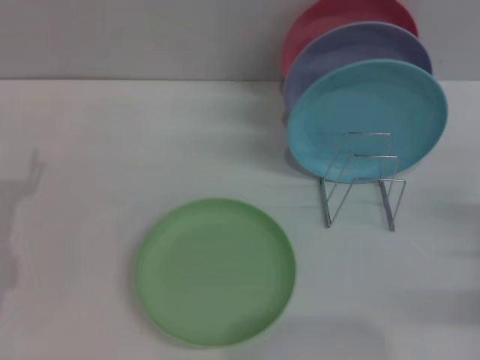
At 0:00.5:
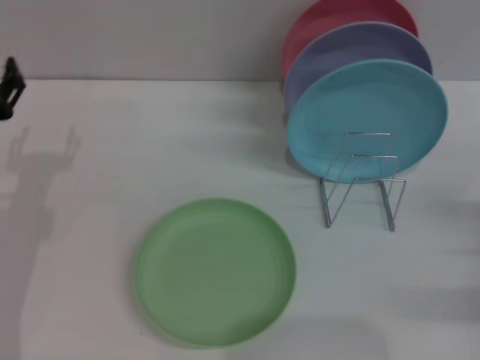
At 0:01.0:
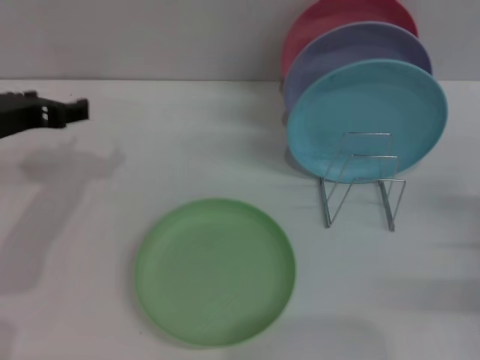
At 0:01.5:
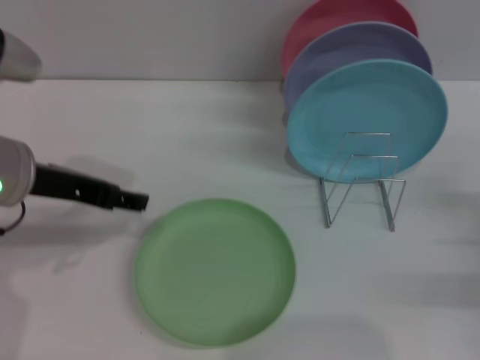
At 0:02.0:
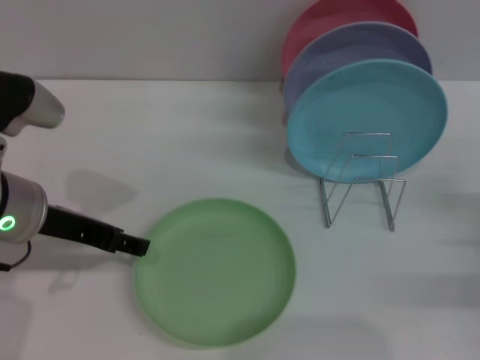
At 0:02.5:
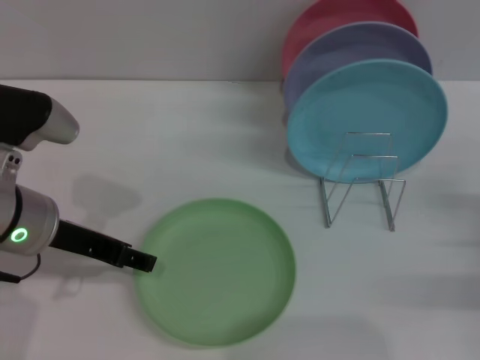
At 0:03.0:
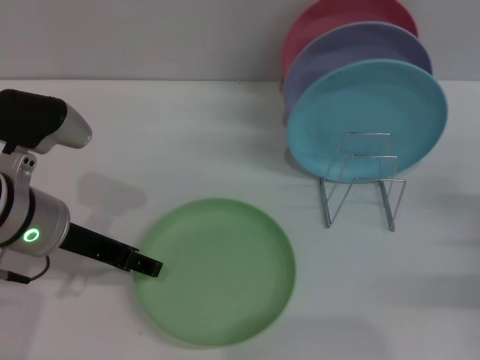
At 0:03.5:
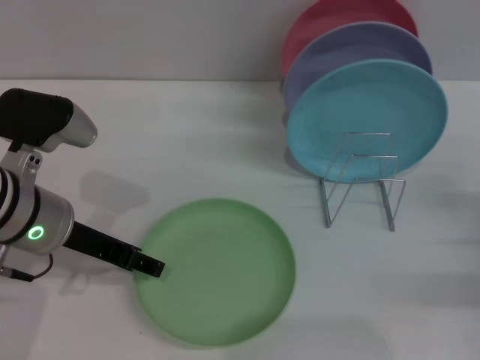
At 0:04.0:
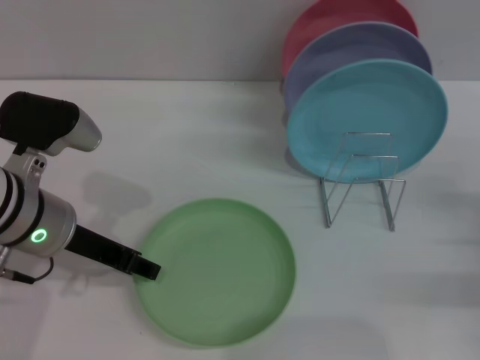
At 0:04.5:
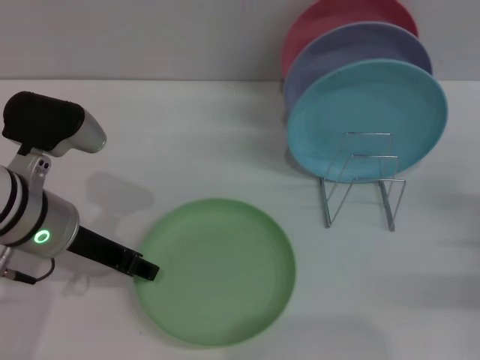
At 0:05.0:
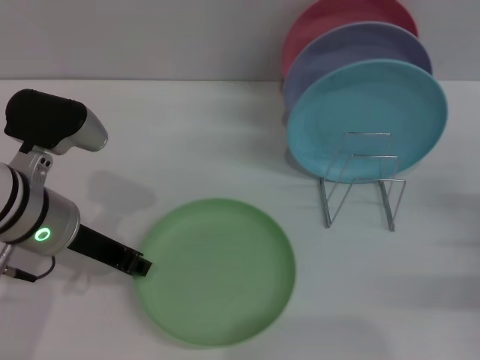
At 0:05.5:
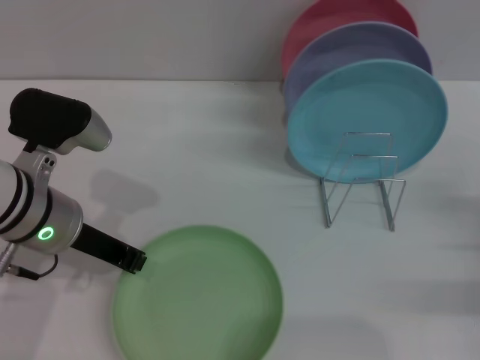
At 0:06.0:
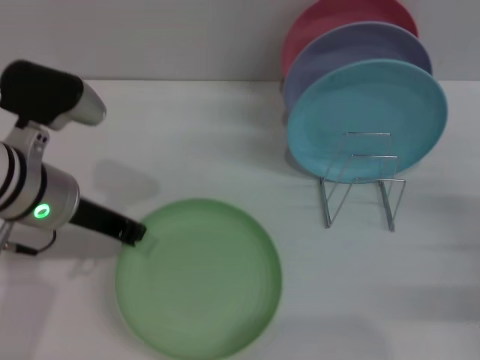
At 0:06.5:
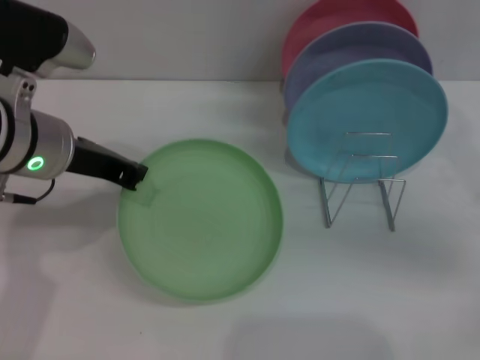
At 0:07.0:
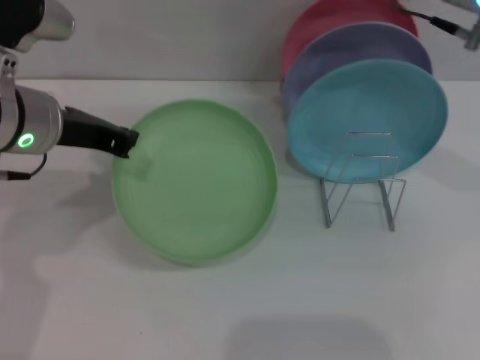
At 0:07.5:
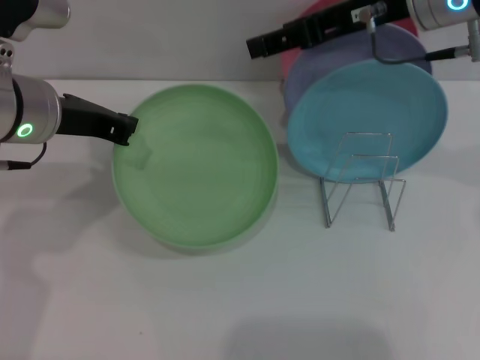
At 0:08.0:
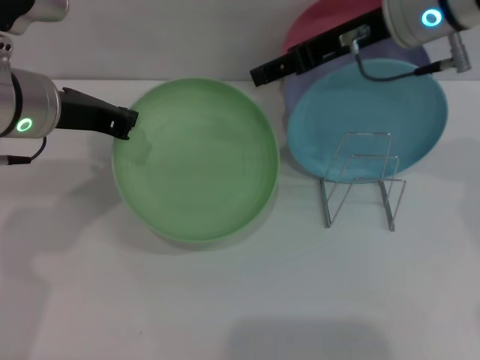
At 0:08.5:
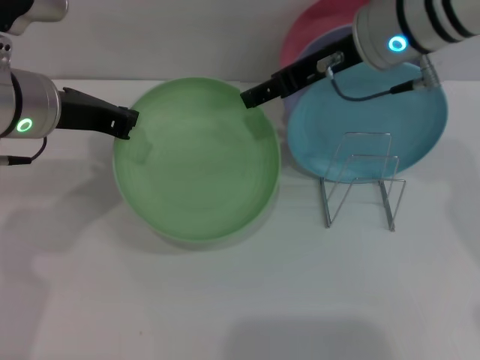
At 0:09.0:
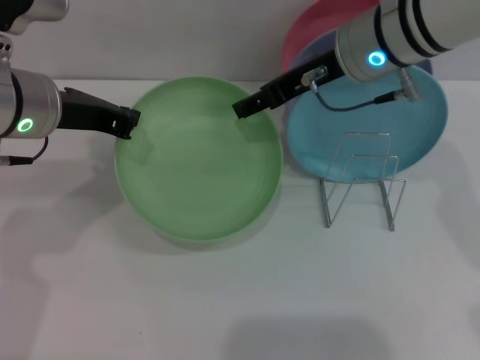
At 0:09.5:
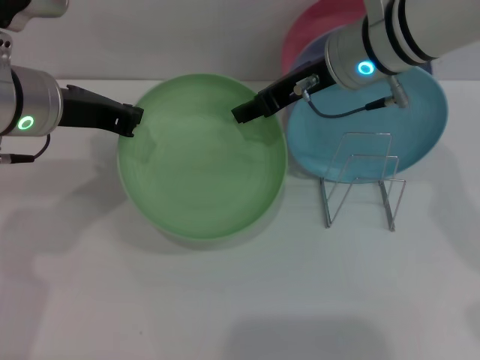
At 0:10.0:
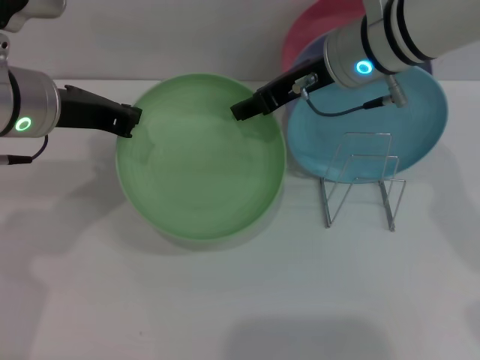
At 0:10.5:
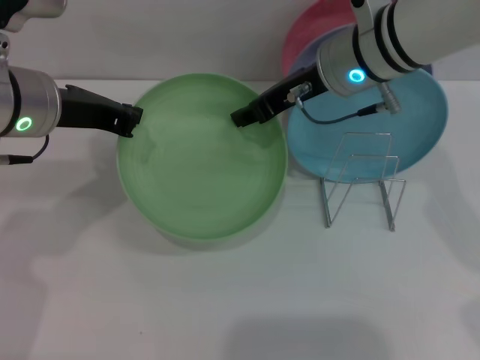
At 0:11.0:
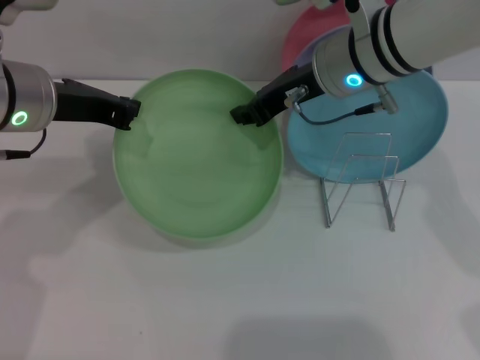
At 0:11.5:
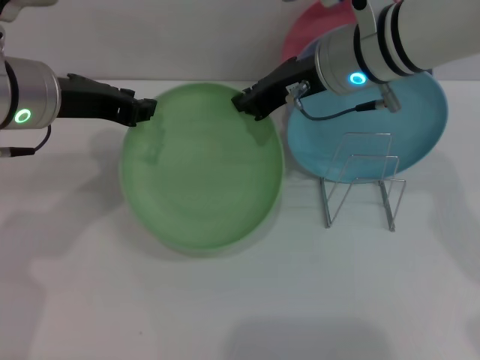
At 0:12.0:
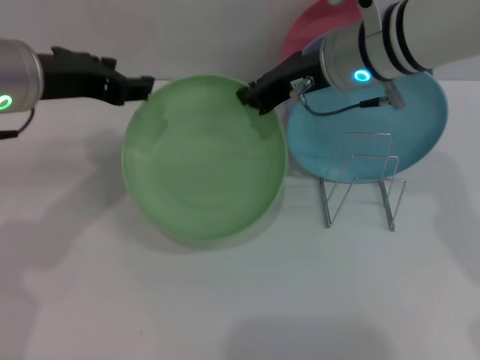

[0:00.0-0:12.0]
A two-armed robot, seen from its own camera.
Task of the whole recording: Grip the plate with one hand, pass it to the other, then set it on the shelf.
Step, 0:00.0 to 0:07.0: Pick up the plate with the left gripper.
0:00.0 to 0:02.0: The left gripper heads upward and to the right, covering roughly 15 cm.
0:02.0 to 0:04.0: The grippers move only a little.
0:04.0 to 0:06.0: The left gripper closes its fingers.
0:06.0 to 0:08.0: The right gripper shifts about 35 cm upward, to the left and forward, while the left gripper is displaced upward by roughly 5 cm.
0:08.0 to 0:10.0: The right gripper changes place by roughly 5 cm.
0:10.0 to 0:12.0: The left gripper opens up. Meanwhile the right gripper closes up.

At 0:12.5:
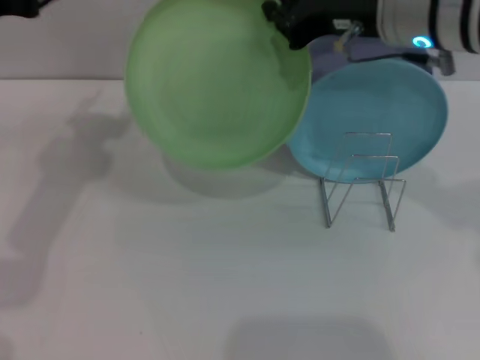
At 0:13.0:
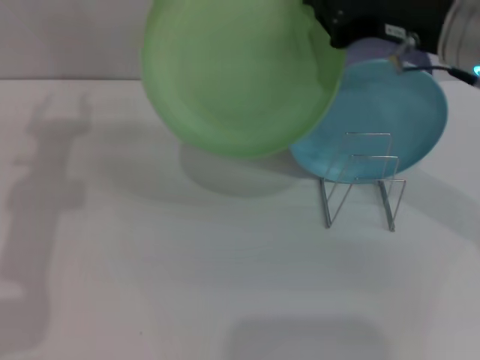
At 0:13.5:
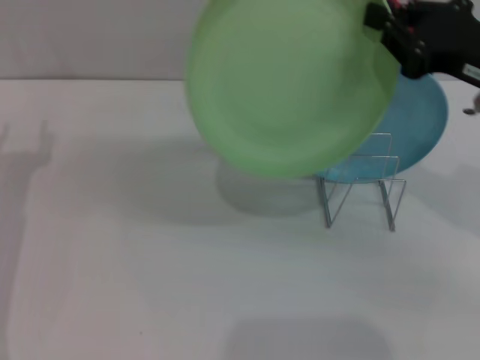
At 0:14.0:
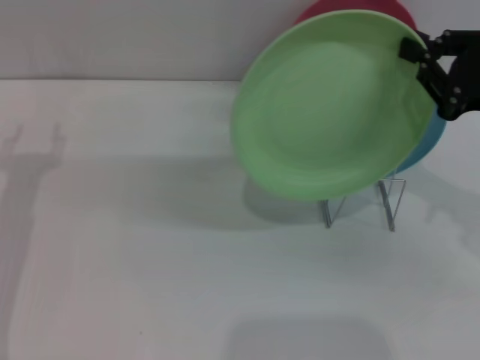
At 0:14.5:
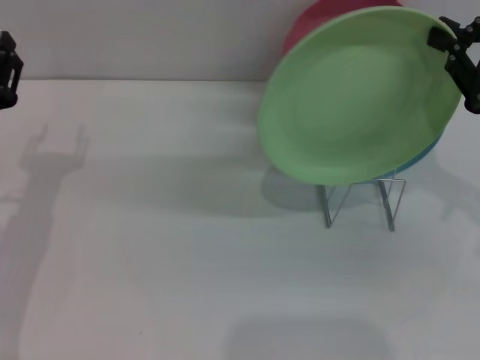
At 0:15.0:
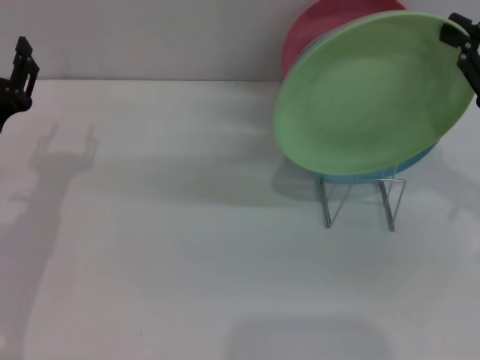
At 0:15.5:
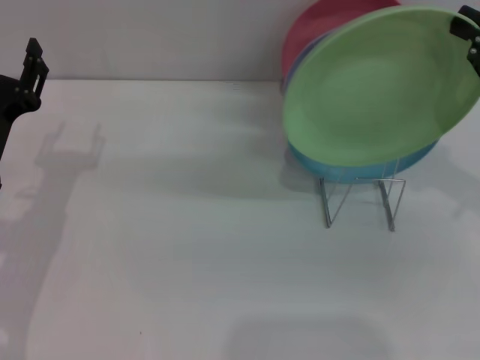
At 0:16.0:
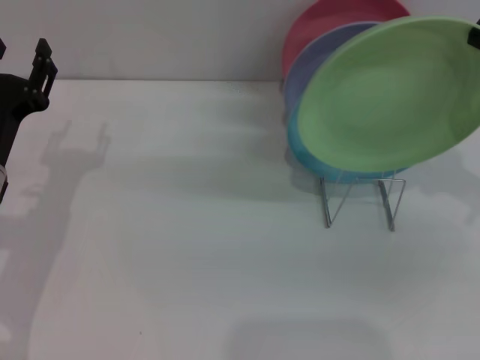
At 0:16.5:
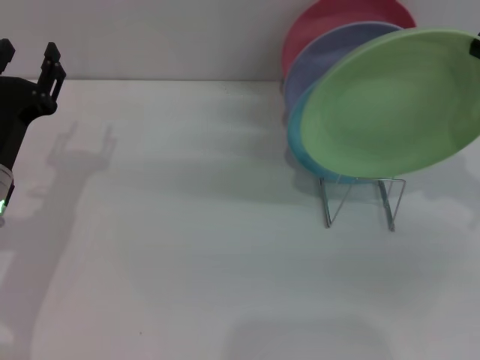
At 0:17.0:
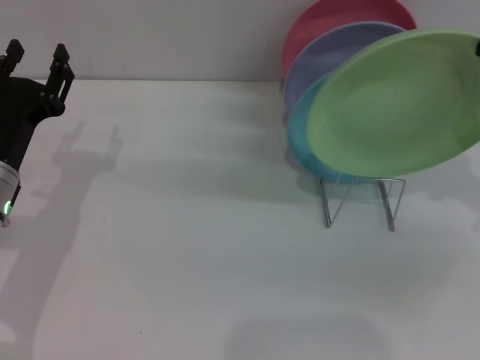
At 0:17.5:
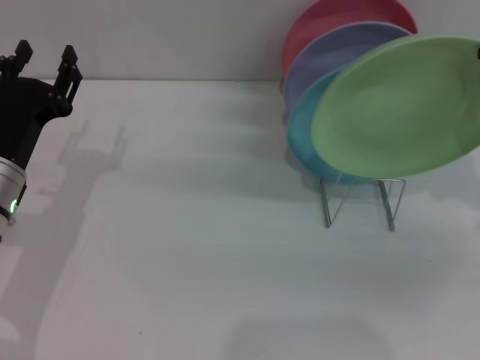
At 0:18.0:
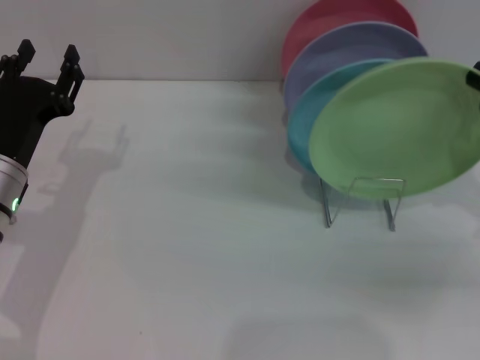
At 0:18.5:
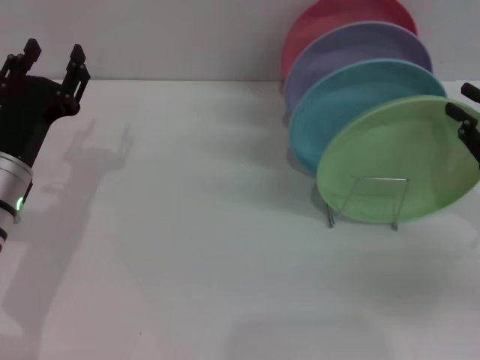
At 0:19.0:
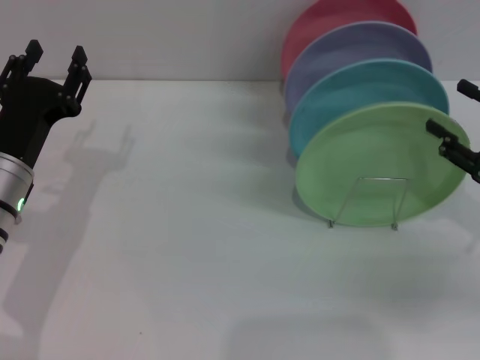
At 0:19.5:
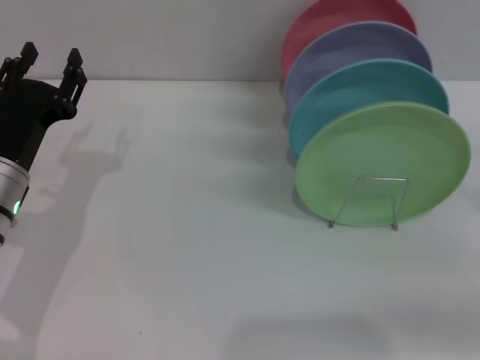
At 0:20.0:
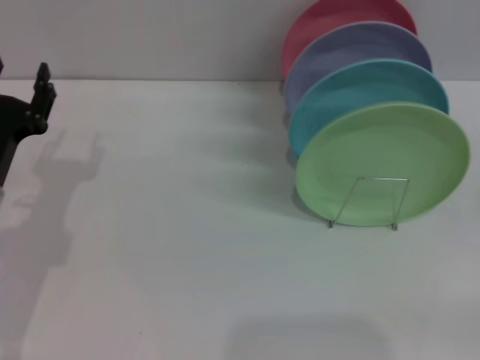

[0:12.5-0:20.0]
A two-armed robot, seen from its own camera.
Task of the whole recording: Grip the plate with one hand, pass it to the other, then set it on the shelf.
Step, 0:13.0 to 0:19.0: Place the plate on the shelf with the right gripper.
0:12.5 to 0:14.5: The right gripper is displaced to the right, backward and downward by approximately 20 cm. Meanwhile the left gripper heads downward, covering roughly 15 cm.
0:14.5 to 0:18.0: The grippers make only small movements.
0:18.0 to 0:20.0: The right gripper shifts some 10 cm to the right, downward and backward, and opens its fingers.
